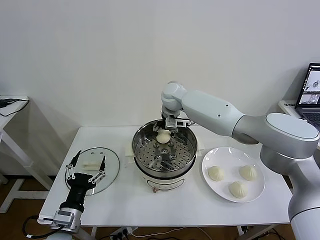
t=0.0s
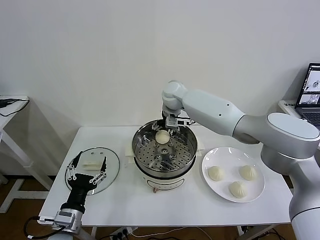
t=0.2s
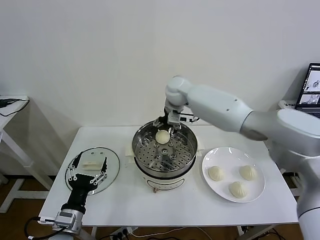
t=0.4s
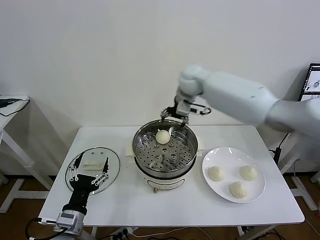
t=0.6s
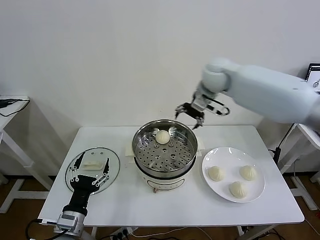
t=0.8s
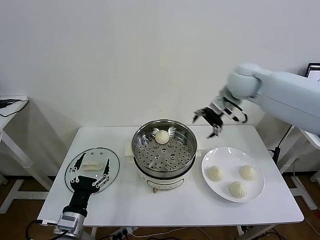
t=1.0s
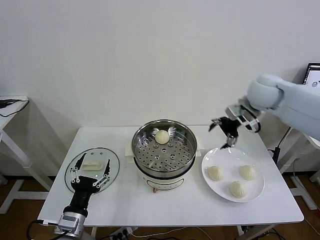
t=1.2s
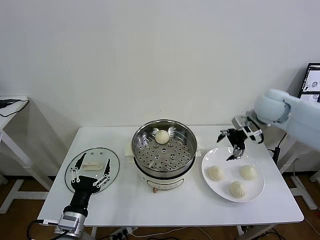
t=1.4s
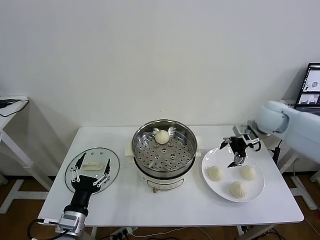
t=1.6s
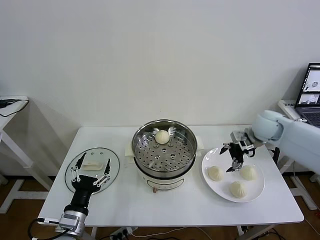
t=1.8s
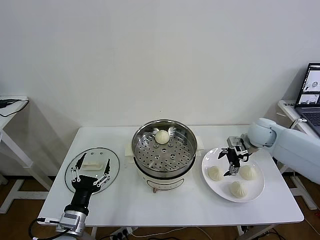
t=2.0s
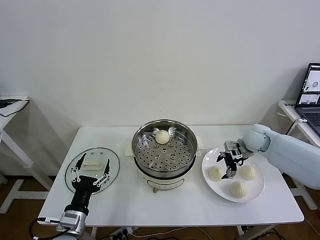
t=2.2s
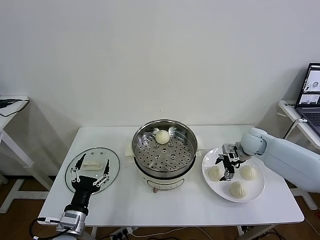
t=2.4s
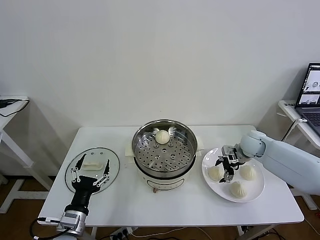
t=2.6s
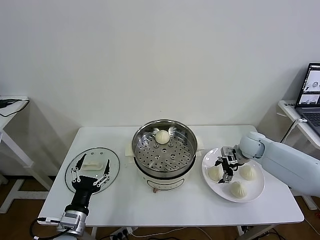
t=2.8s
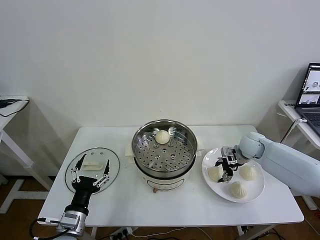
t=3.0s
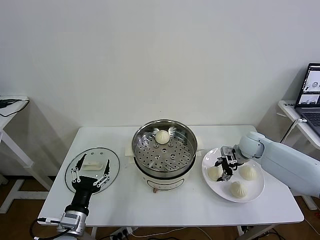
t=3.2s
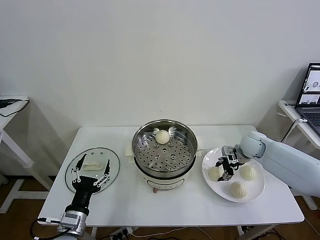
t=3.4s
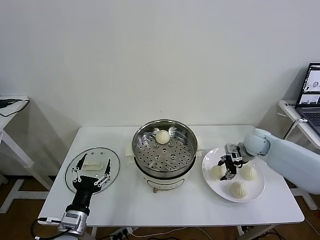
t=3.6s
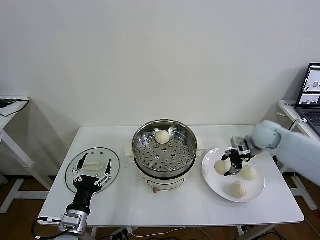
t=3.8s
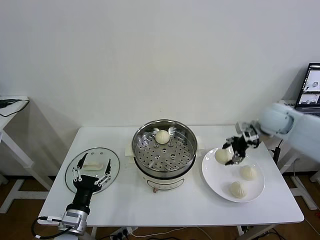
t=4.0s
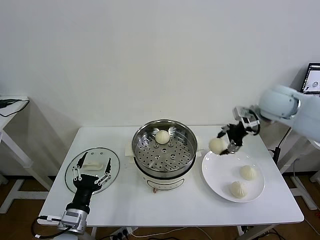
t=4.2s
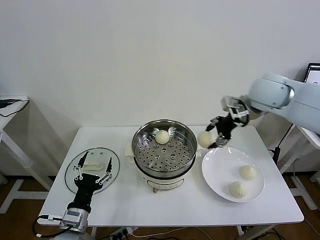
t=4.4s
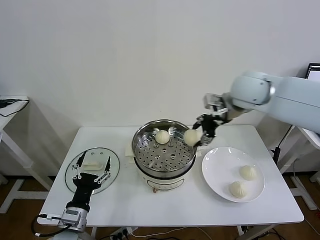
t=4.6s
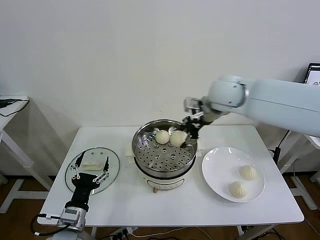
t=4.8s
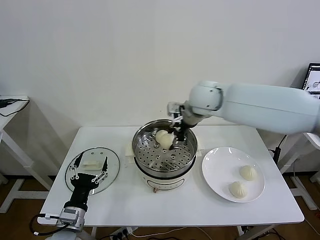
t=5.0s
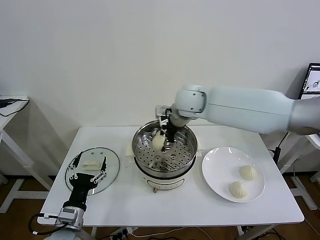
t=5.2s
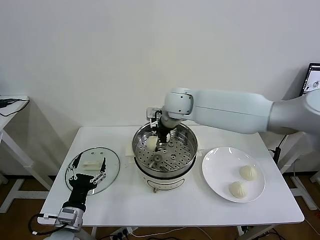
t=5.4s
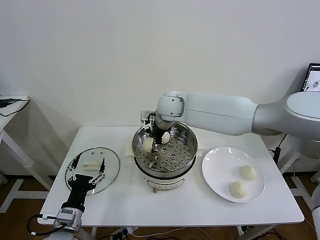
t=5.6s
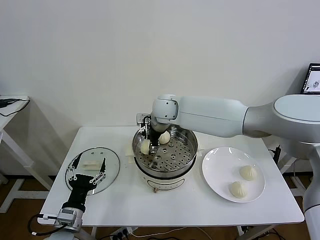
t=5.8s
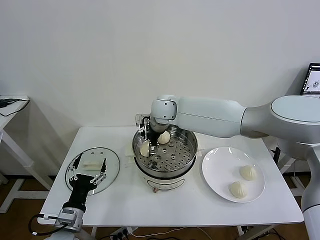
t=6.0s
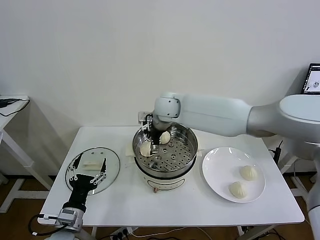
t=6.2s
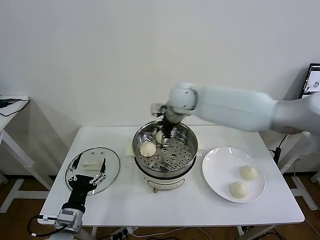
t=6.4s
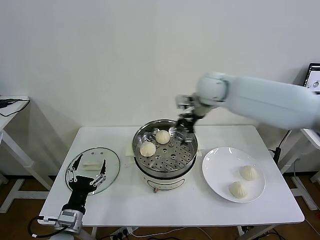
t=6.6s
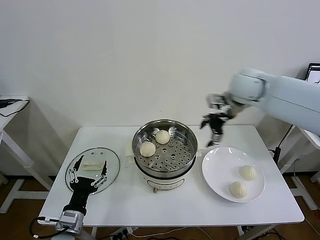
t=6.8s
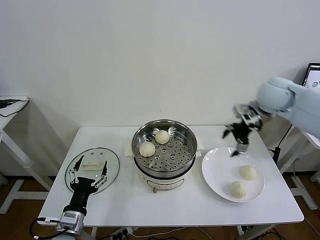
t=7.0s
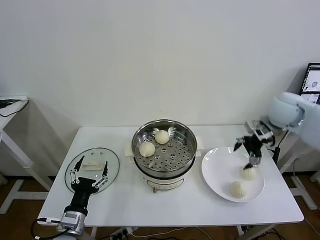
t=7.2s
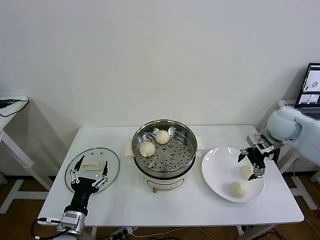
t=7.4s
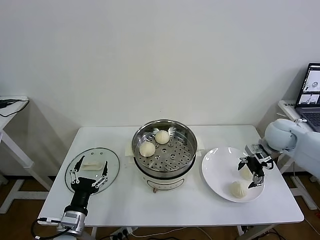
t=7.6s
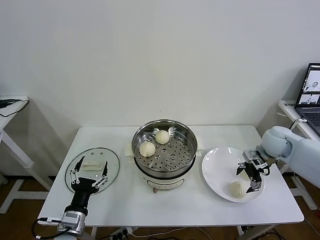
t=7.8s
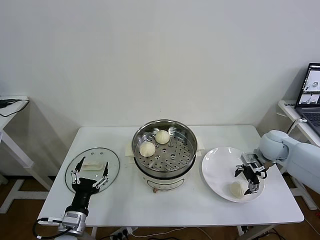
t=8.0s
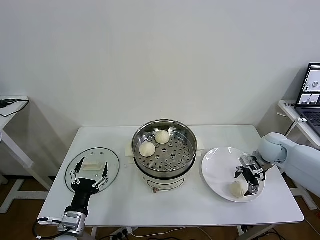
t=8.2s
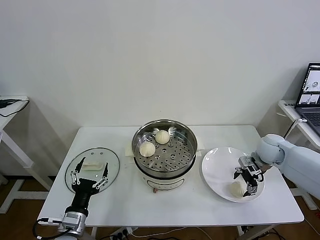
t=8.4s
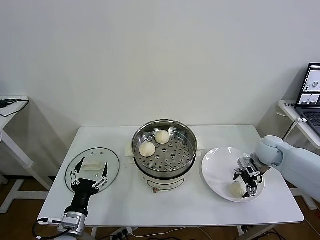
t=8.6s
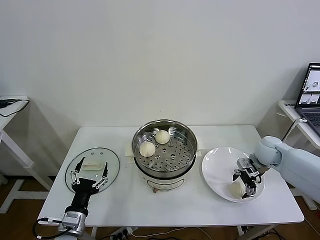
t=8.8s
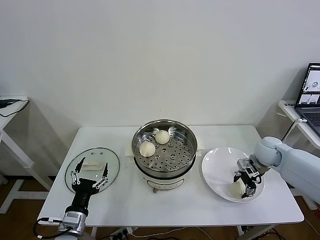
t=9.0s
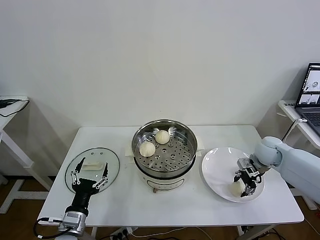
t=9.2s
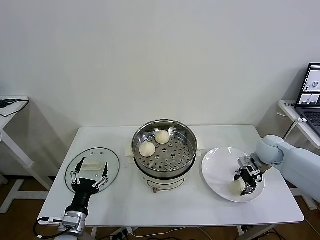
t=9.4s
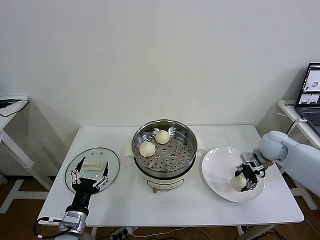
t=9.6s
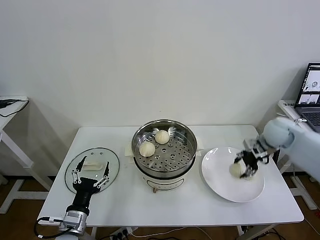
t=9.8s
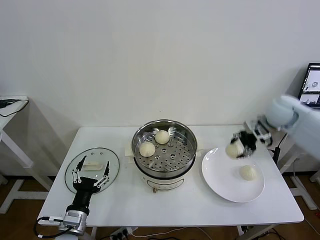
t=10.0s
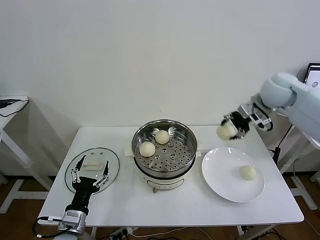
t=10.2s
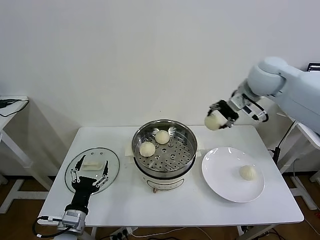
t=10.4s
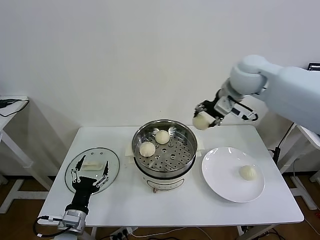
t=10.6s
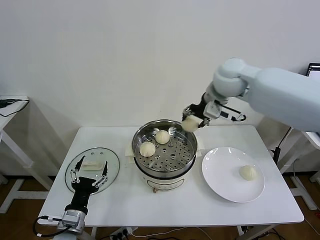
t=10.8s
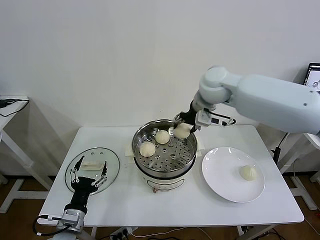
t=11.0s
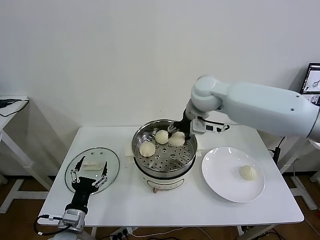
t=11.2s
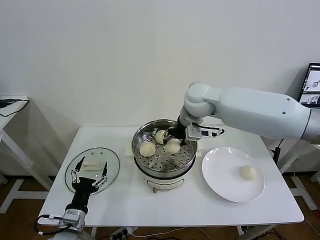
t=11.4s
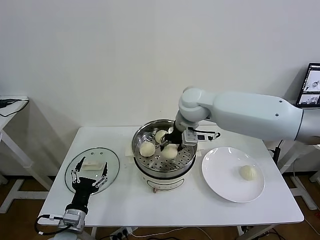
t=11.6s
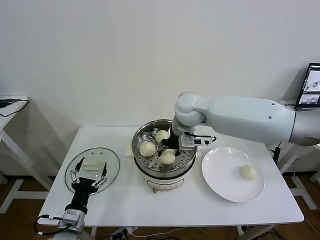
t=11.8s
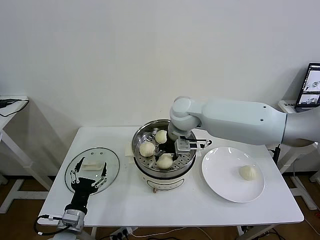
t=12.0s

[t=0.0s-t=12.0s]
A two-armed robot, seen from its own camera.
Task of the whole recording: take steamed baozi put them in steamer then cover it.
Step, t=0.2s to t=3.2s: Grasp the baozi in the plate with right gripper.
Step, t=3.4s to t=6.0s: Place the baozi on the steamer with right gripper.
Step, t=6.2s to t=9.2s: Grasp the baozi in the plate with right gripper.
t=0.0s to t=1.6s: The right gripper shifts some 30 cm to the right.
t=1.6s to t=3.0s: The right gripper travels downward by about 15 cm, and closes up.
t=3.0s to t=4.4s: The right gripper goes some 25 cm upward.
t=4.4s to t=6.0s: The right gripper is displaced to the left and downward by about 30 cm, and opens up.
t=6.0s to t=7.6s: The right gripper travels to the right by approximately 40 cm.
t=7.6s to t=9.0s: The right gripper heads downward, covering about 10 cm, and closes.
t=9.0s to t=10.4s: The right gripper goes some 30 cm upward and to the left.
t=10.4s to t=12.0s: The right gripper moves to the left and downward, some 25 cm.

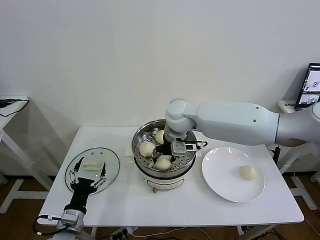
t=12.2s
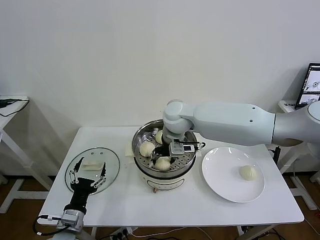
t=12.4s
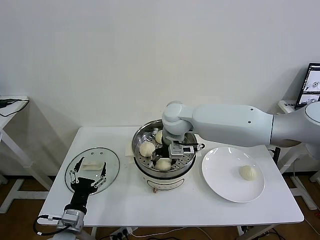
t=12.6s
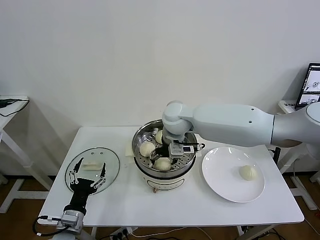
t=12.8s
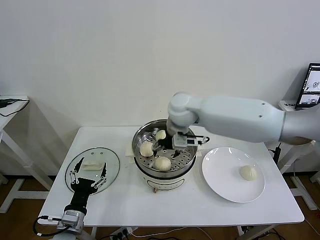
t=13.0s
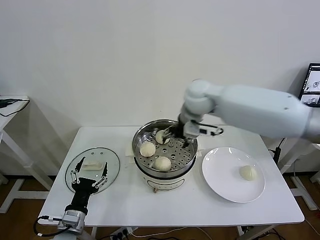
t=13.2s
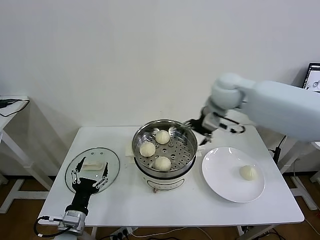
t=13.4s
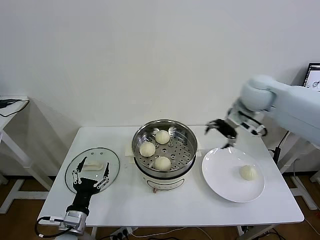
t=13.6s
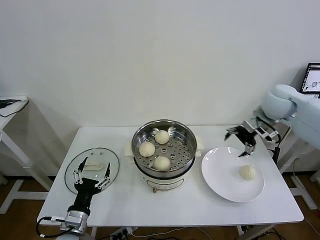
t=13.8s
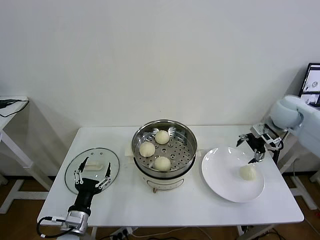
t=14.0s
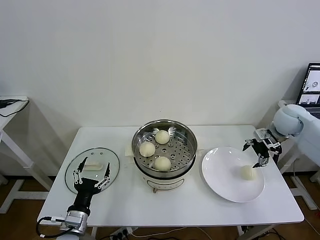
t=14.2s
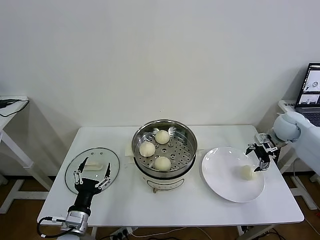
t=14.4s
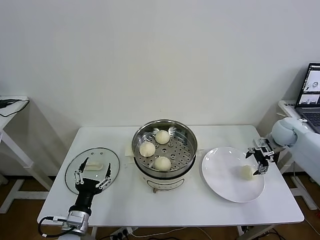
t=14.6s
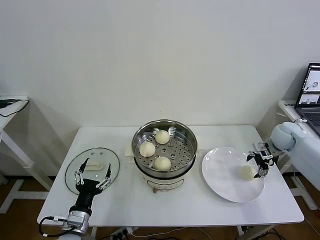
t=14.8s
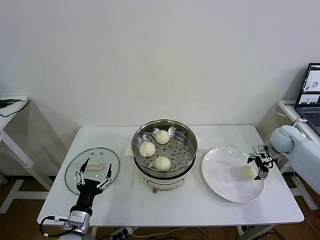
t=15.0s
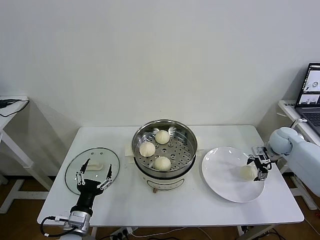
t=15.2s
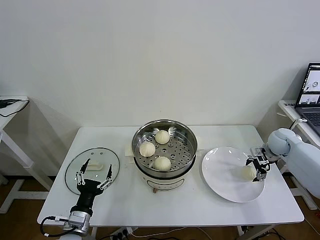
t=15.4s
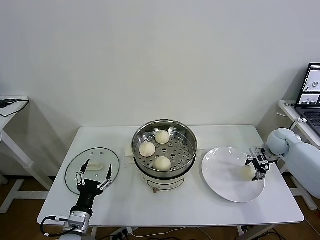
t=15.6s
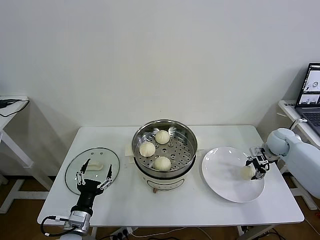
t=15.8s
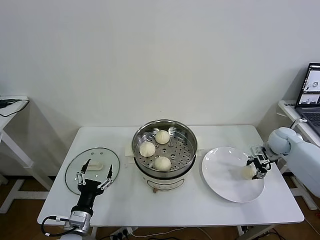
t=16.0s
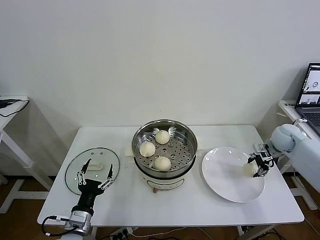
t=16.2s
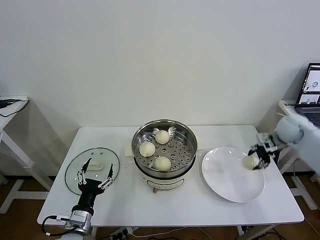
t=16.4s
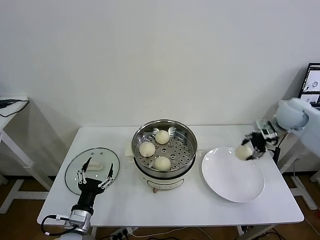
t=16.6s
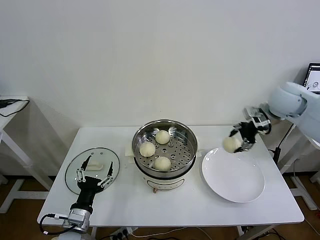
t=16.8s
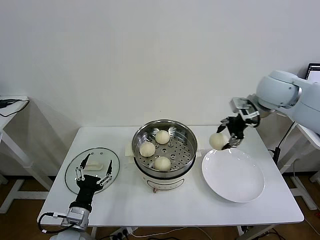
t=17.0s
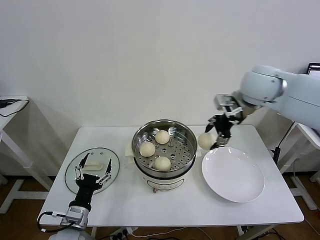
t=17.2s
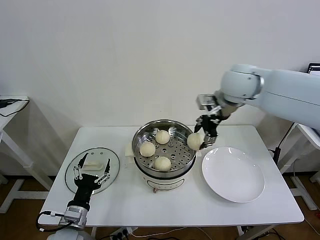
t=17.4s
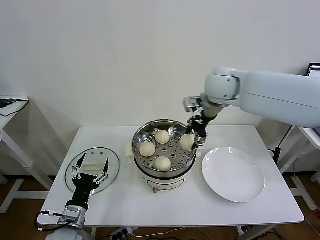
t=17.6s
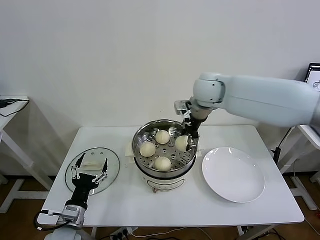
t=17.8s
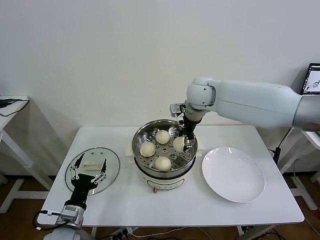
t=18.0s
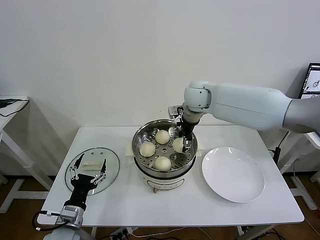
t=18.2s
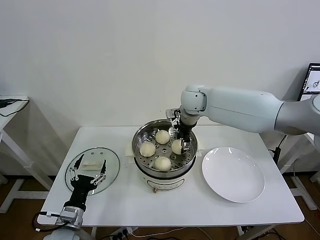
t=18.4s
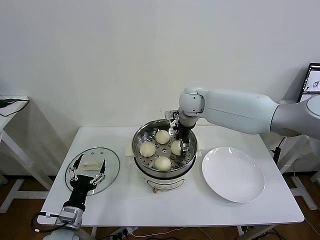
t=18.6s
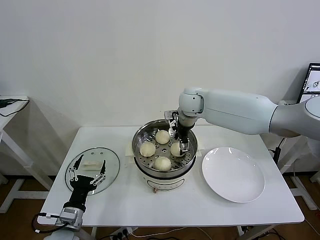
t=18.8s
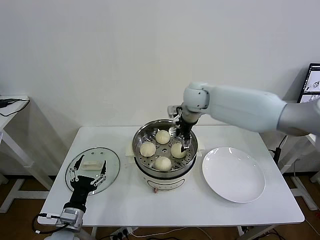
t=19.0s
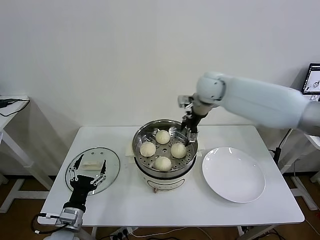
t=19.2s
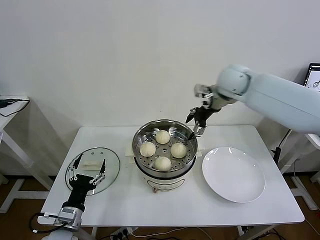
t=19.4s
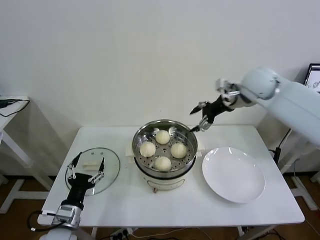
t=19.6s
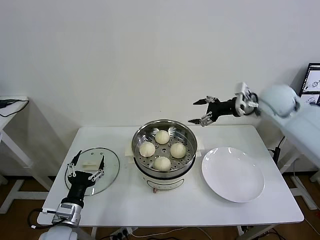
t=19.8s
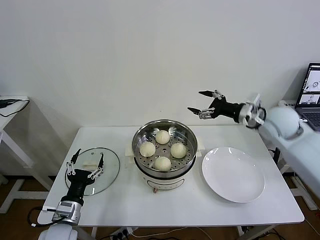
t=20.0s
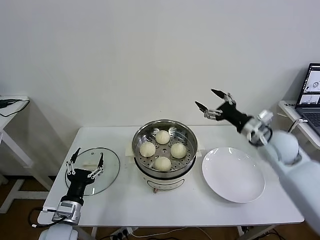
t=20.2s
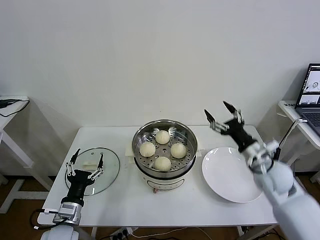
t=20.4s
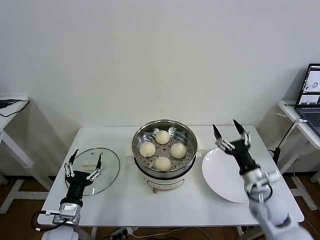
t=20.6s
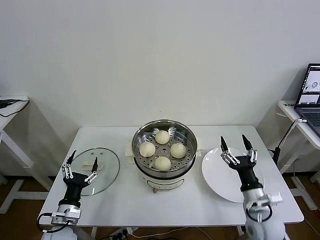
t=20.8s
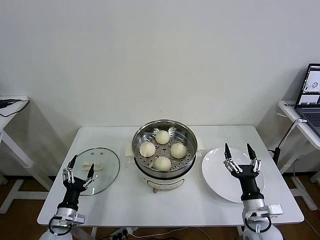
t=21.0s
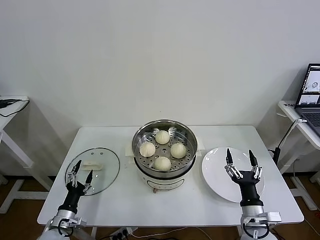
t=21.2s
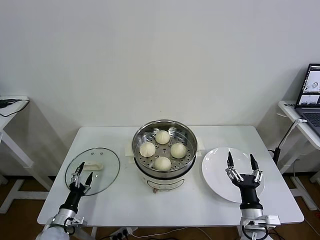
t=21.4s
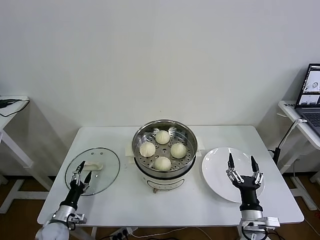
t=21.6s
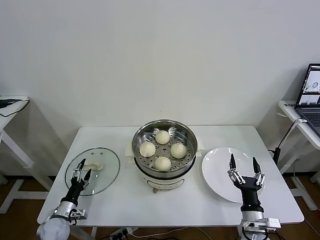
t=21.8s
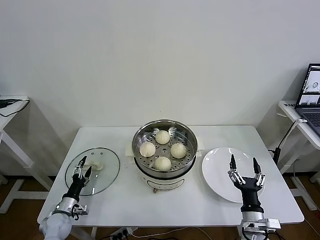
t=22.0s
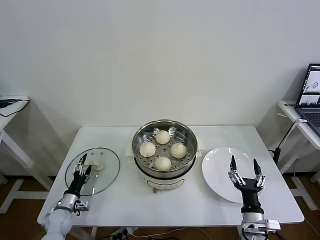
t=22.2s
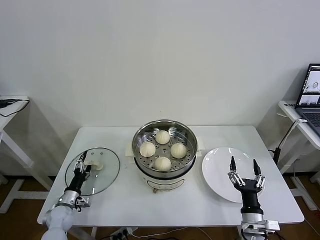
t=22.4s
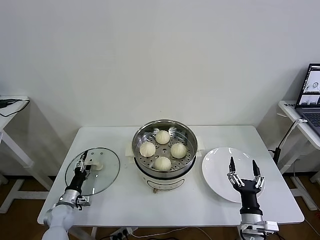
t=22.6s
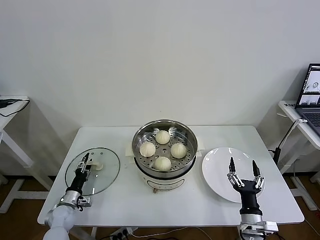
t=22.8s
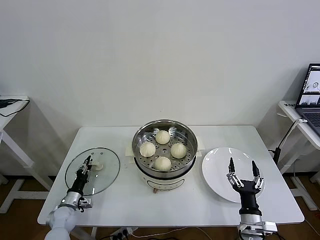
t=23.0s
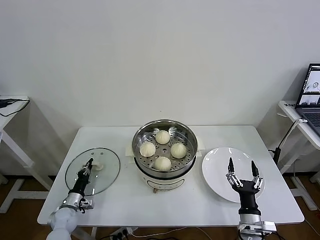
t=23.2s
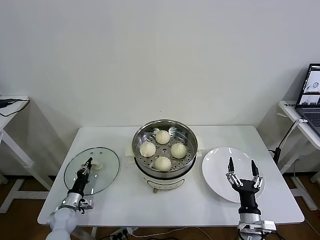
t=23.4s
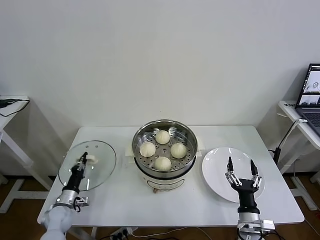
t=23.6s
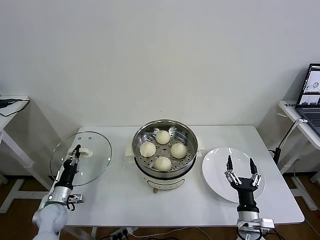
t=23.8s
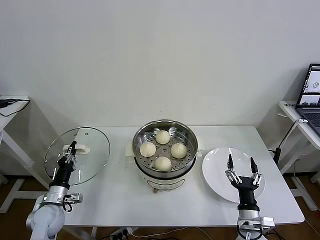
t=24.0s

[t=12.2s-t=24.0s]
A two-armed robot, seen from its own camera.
Task of the whole recording: take steamed baozi put them in steamer then cover it.
Step, t=13.0s to t=15.8s: Grasp the baozi in the plate with right gripper.
Step, t=16.0s to t=18.8s: Place the baozi on the steamer with right gripper.
Step, t=19.0s to t=23.2s: Grasp the pot lid with left gripper.
t=12.2s to t=13.6s: The right gripper shifts approximately 25 cm to the right, and opens its fingers.
t=13.6s to t=15.2s: The right gripper travels downward and to the right by about 25 cm.
t=15.2s to t=16.6s: The right gripper moves upward, approximately 15 cm, and closes.
t=16.6s to t=18.2s: The right gripper moves to the left, roughly 30 cm.
t=18.2s to t=19.6s: The right gripper heads to the right, covering about 15 cm, and opens.
t=19.6s to t=21.0s: The right gripper travels backward and downward by about 40 cm; the left gripper shifts some 5 cm downward.
t=21.0s to t=22.6s: The right gripper ends up roughly 5 cm from where it was. Meanwhile the left gripper shifts about 15 cm forward, downward and to the left.
t=22.6s to t=24.0s: The left gripper travels upward by some 10 cm, and closes its fingers.
